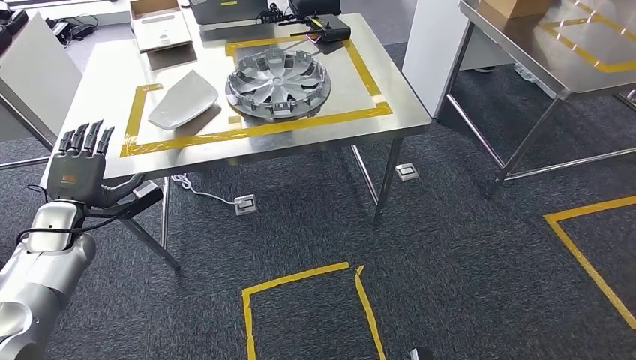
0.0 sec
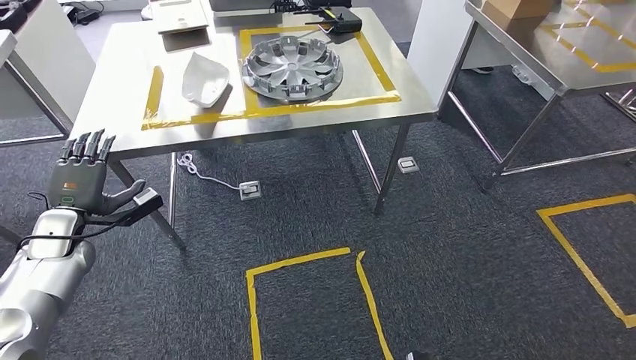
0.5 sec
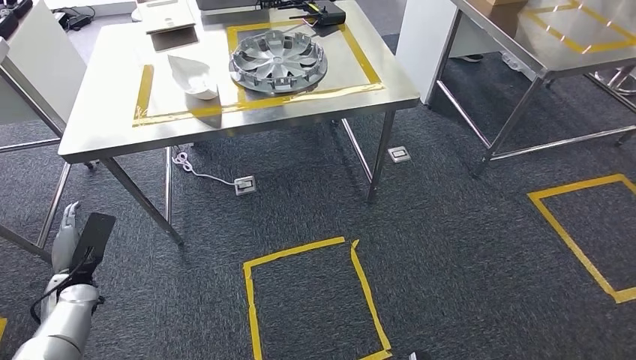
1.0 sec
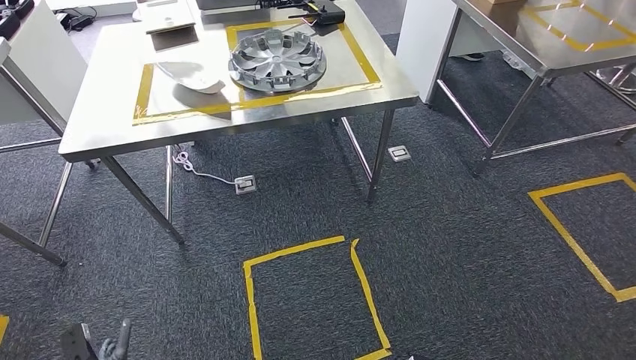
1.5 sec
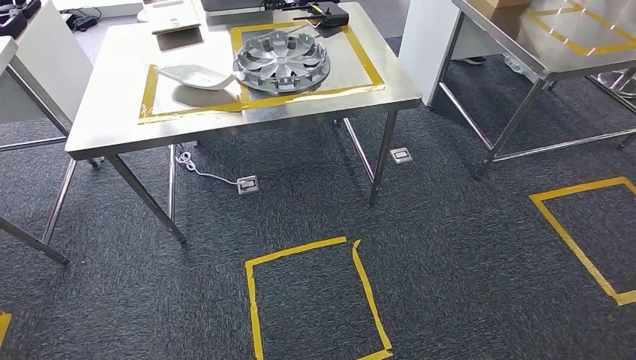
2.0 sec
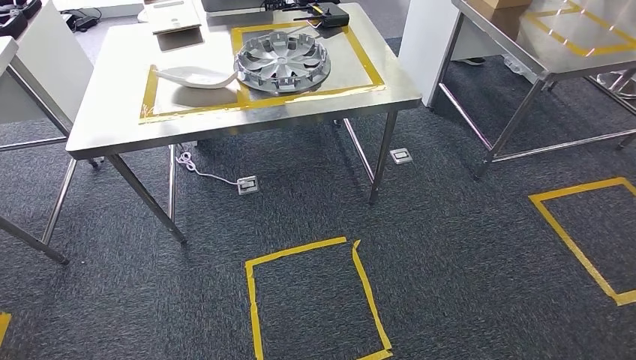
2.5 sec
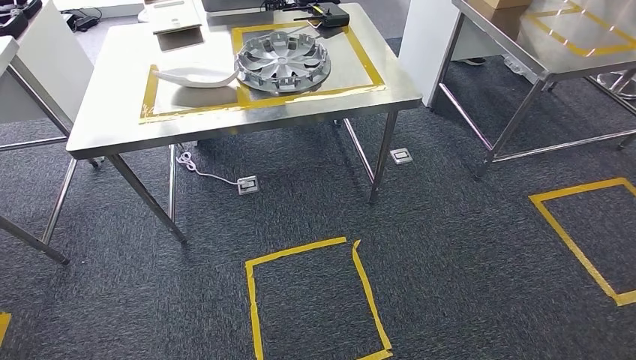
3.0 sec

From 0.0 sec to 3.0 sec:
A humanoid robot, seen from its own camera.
Step, from 0.0 sec to 3.0 sec: Return to the initial position at the shelf.
From 1.5 sec to 3.0 sec: The left hand moves backward and to the right, roughly 20 cm. Meanwhile the right hand changes place by roughly 5 cm.
